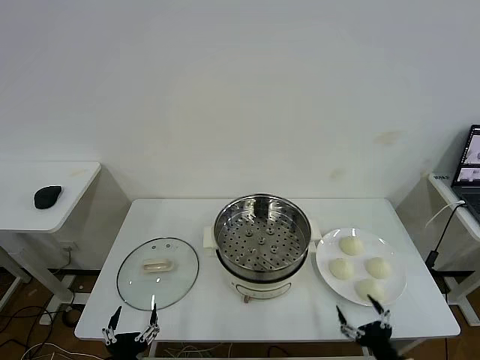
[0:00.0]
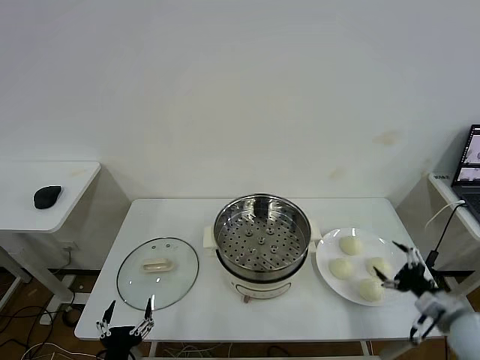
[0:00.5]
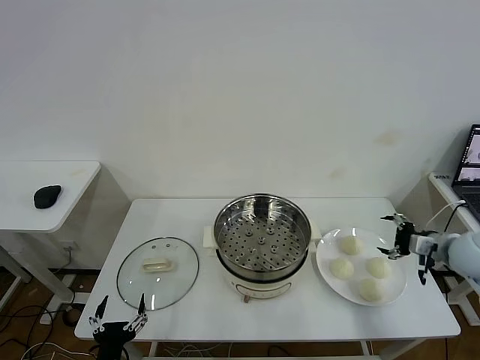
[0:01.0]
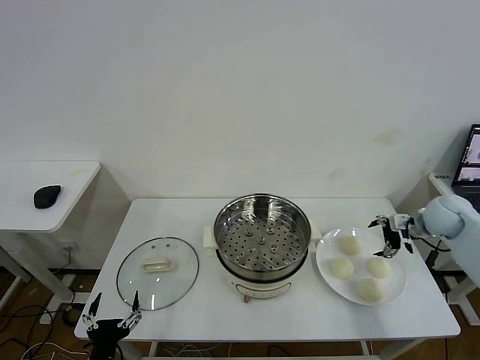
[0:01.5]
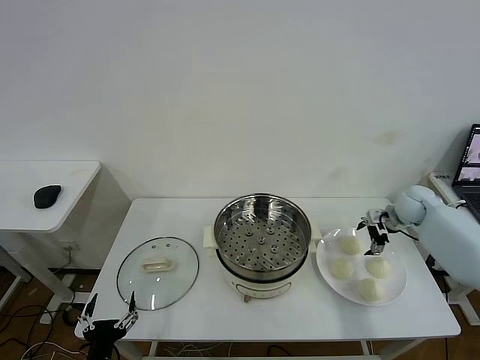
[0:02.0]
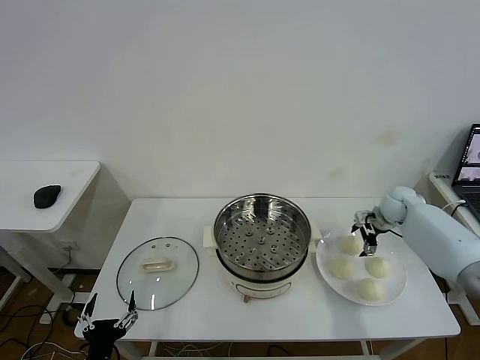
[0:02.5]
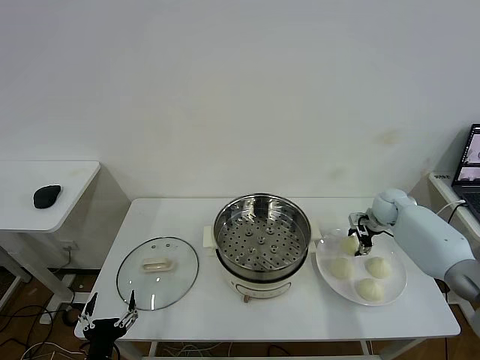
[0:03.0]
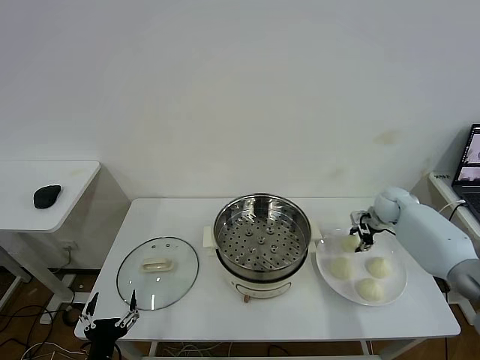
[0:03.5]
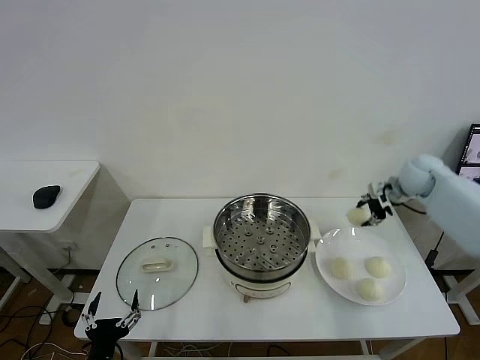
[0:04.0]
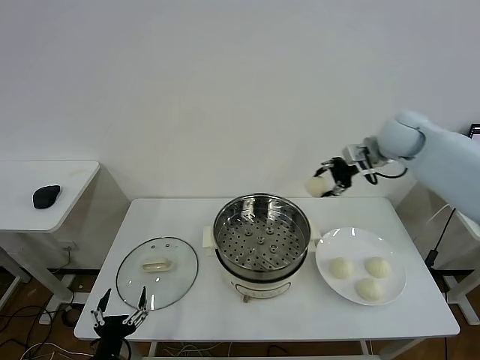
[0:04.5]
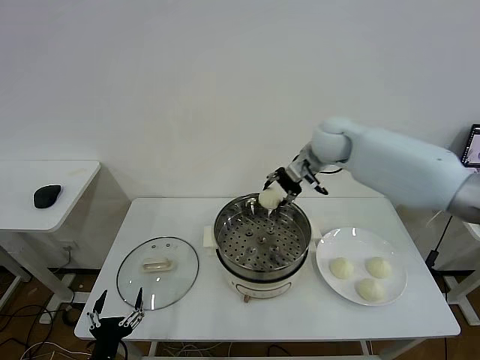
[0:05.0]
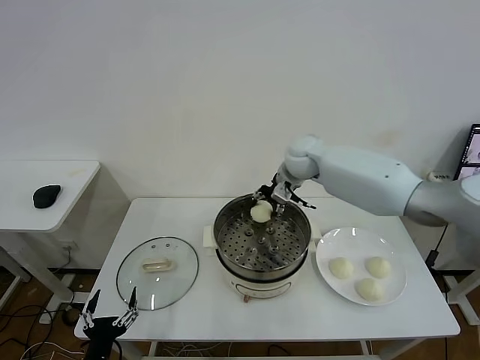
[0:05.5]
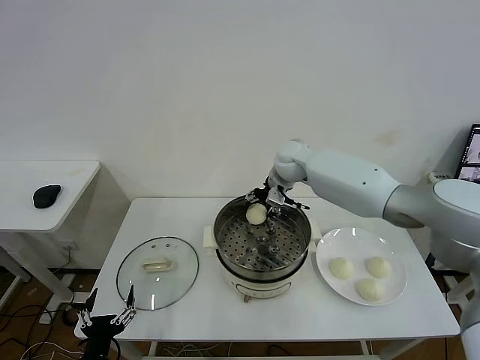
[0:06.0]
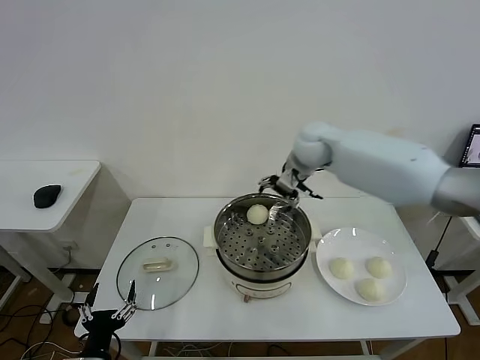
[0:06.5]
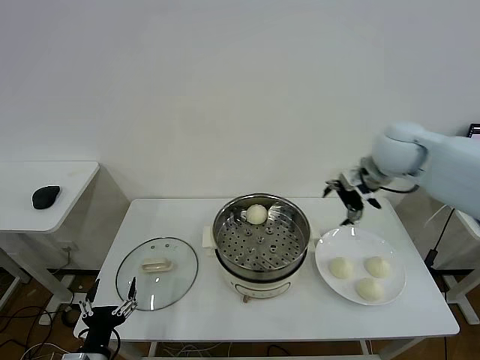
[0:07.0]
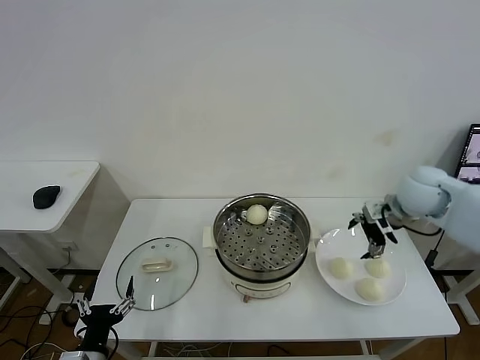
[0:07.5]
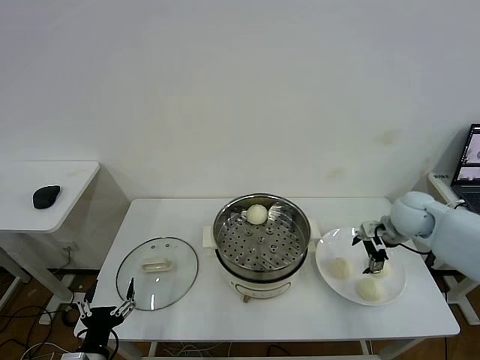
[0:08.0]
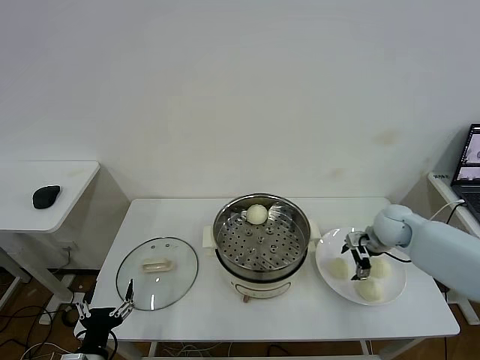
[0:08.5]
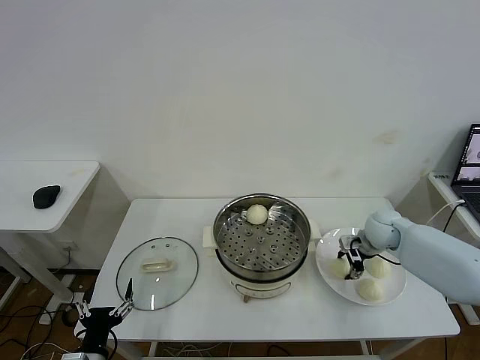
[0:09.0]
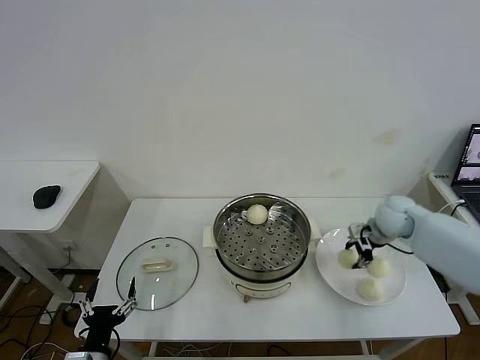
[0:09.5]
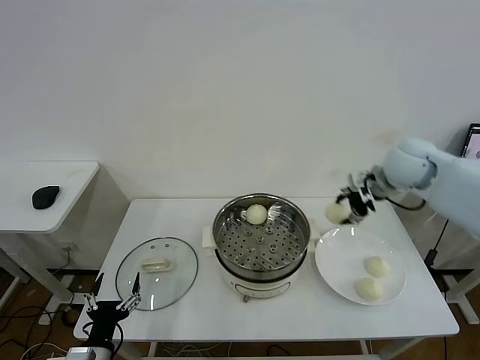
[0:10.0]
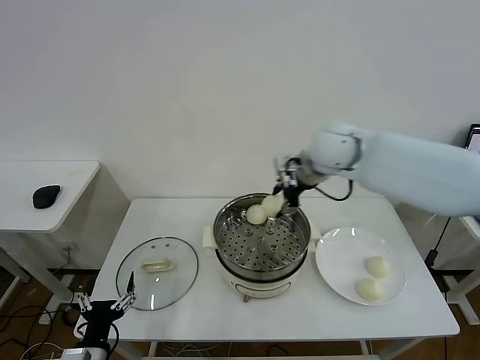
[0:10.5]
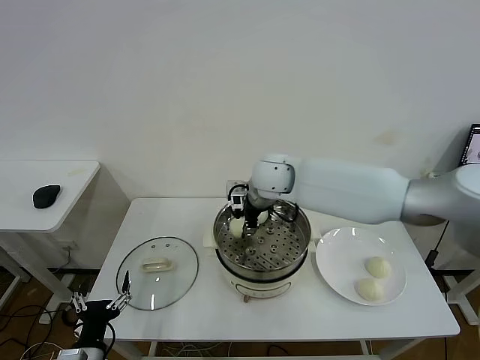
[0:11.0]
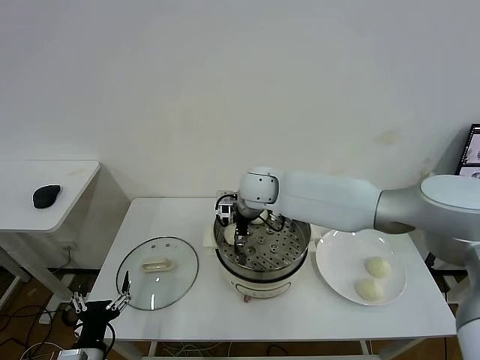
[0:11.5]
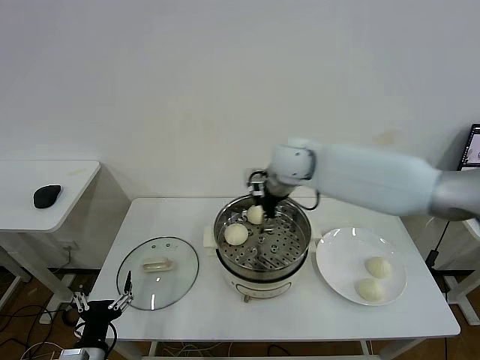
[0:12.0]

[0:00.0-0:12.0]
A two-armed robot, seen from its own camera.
Task of the whole recording: take steamed baozi put them in steamer then cover it.
Step, 0:00.0 to 0:03.0: Grasp the baozi in the plate with right gripper.
Step, 0:03.5 to 0:06.0: Place the baozi on the steamer with right gripper.
Step, 0:06.5 to 0:09.0: Grasp the baozi in the plate with right gripper.
Step, 0:09.5 to 0:11.5: Place the baozi on the steamer with right gripper.
0:02.0 to 0:04.0: The right gripper moves upward, approximately 10 cm, and closes its fingers.
0:04.0 to 0:06.0: The right gripper shifts about 30 cm to the left, and opens up.
0:06.0 to 0:08.0: The right gripper goes approximately 30 cm to the right and backward.
0:08.0 to 0:10.0: The right gripper shifts about 15 cm upward and to the left, and closes up.
0:10.0 to 0:12.0: The right gripper shifts roughly 20 cm to the left, and opens.

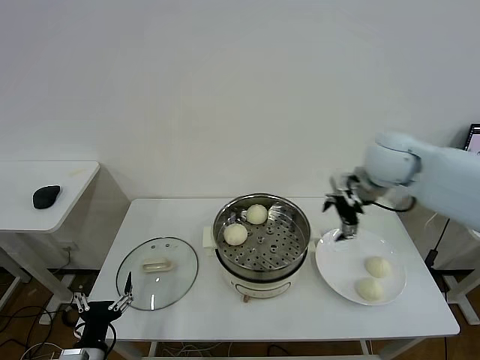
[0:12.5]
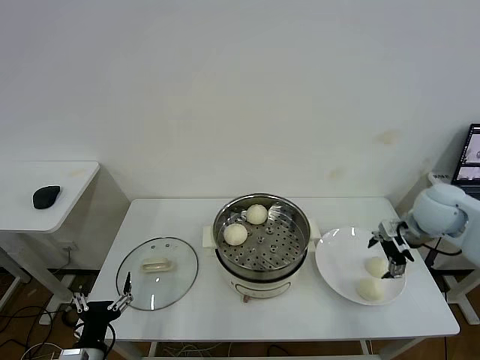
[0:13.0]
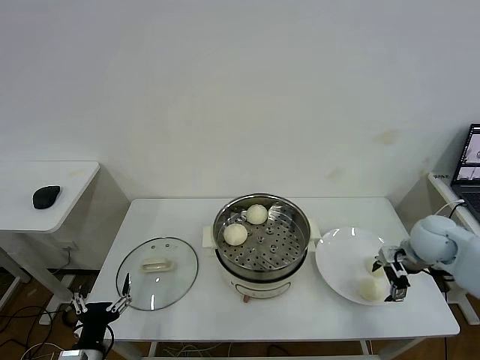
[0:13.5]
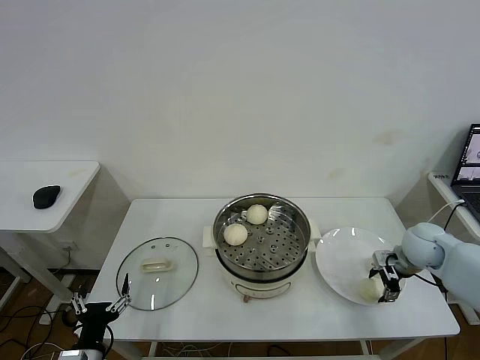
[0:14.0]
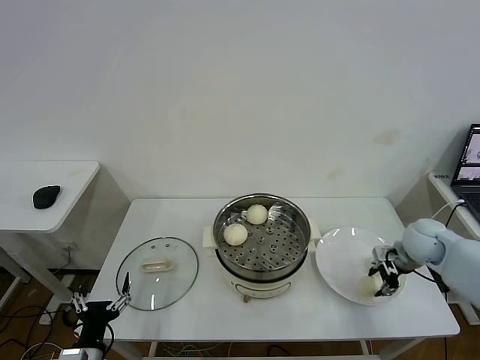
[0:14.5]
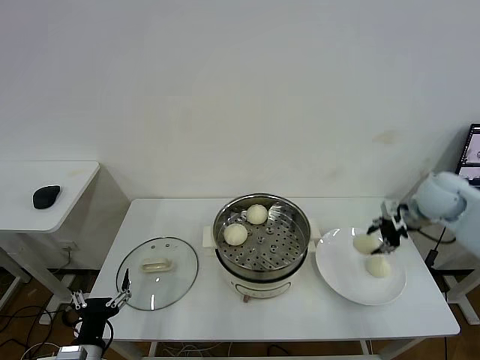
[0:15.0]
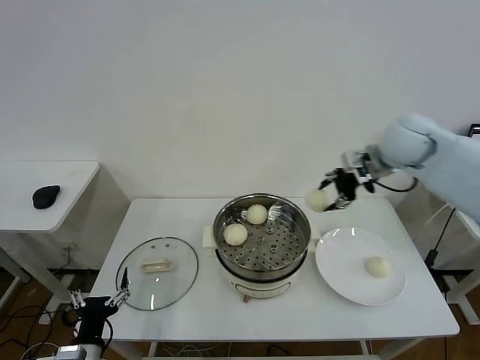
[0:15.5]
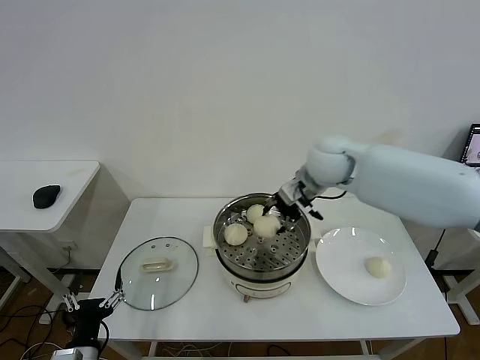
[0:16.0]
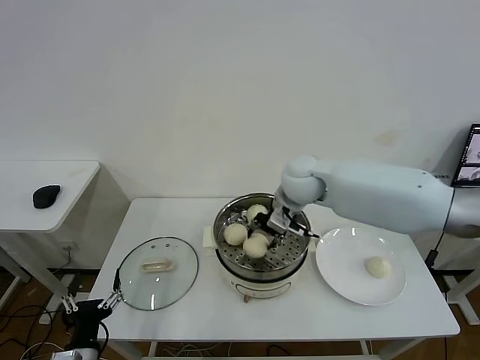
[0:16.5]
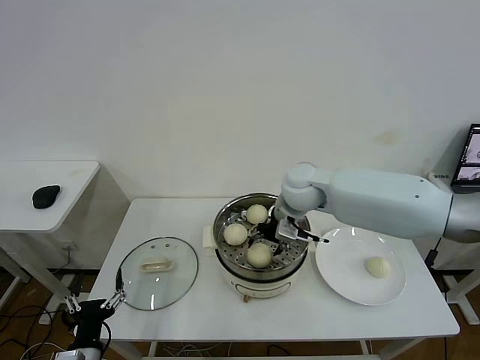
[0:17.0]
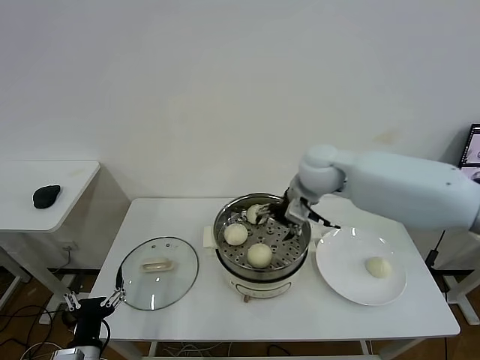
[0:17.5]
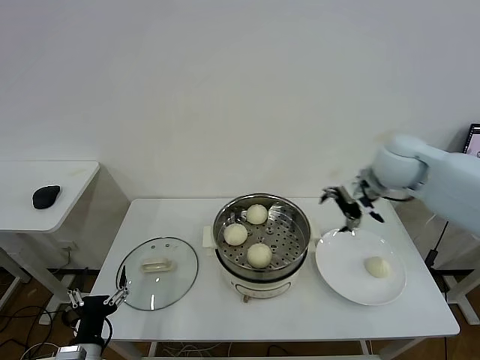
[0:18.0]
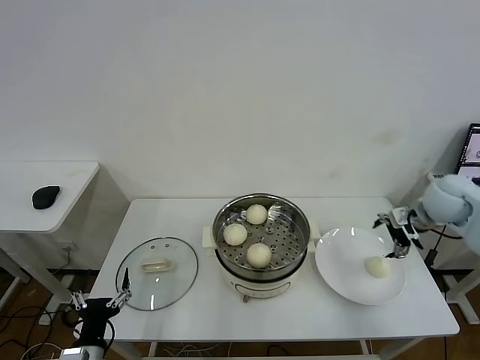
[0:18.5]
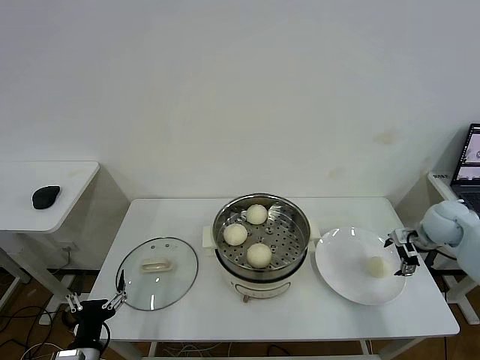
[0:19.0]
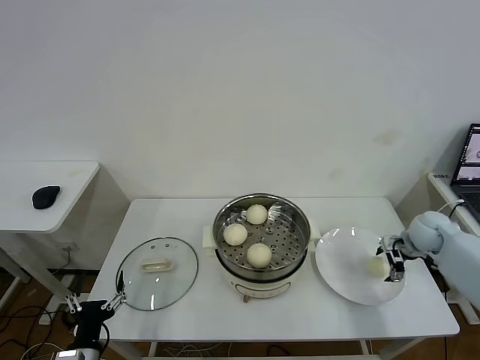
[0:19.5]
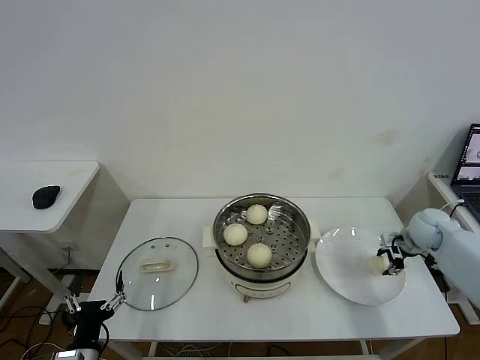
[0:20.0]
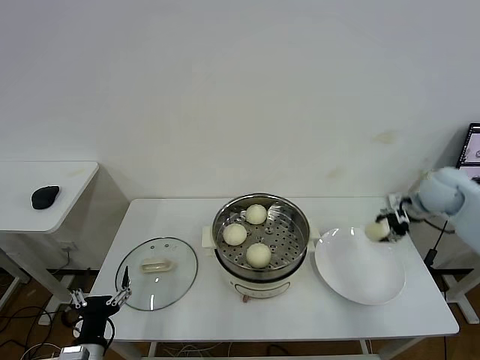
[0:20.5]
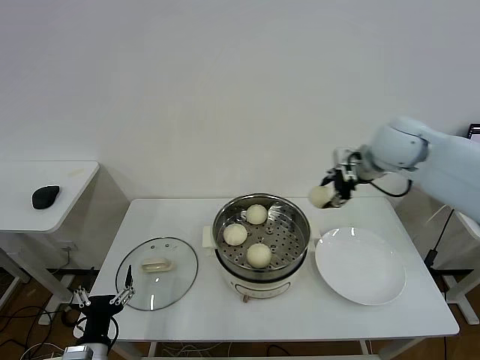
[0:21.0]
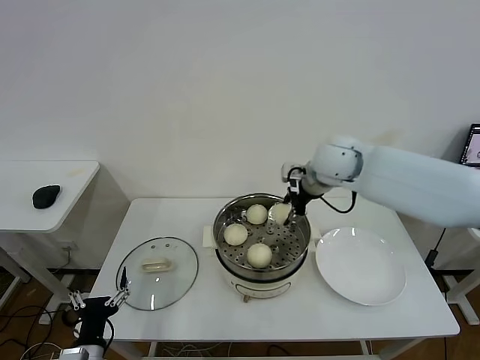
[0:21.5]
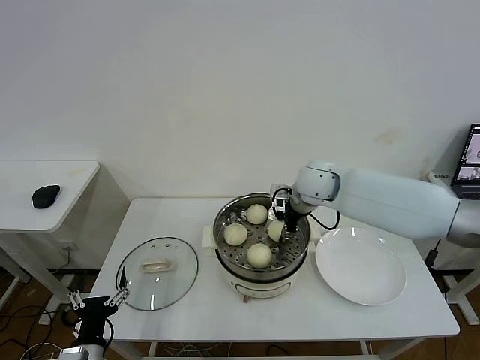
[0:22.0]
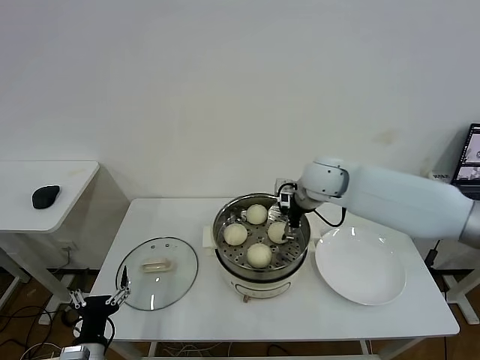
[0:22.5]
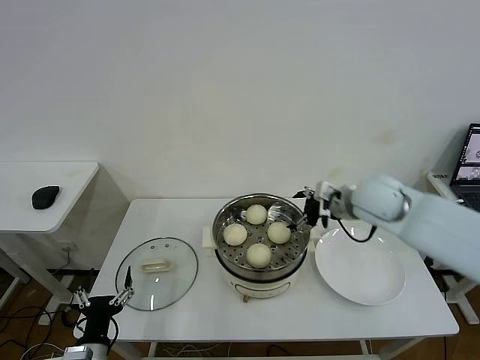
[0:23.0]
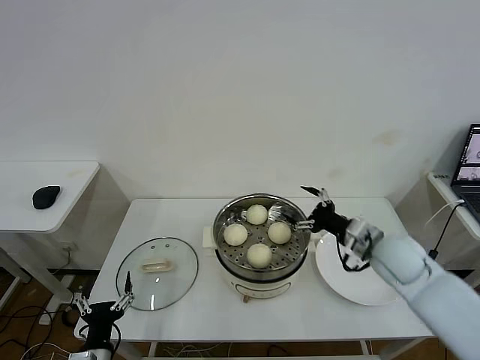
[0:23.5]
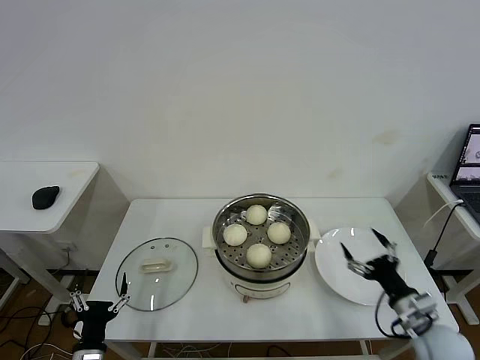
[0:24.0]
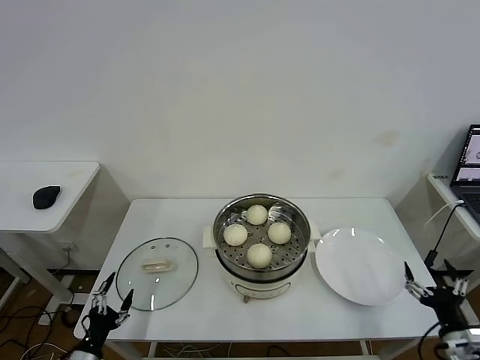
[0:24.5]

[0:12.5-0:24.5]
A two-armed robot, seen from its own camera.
Task of the whole recording: take steamed baozi put them in steamer then cover it.
Step, 0:12.5 to 0:14.0: Grasp the baozi in the plate with right gripper.
Step, 0:14.5 to 0:17.0: Place the baozi on the steamer with right gripper.
Step, 0:17.5 to 0:20.0: Grasp the baozi in the plate with right gripper.
Step, 0:20.5 to 0:22.0: Place the baozi on the steamer with right gripper.
0:12.5 to 0:14.5: The right gripper moves downward and to the right, roughly 25 cm, and closes.
0:14.5 to 0:16.5: The right gripper travels to the left and upward by approximately 30 cm.
0:16.5 to 0:18.5: The right gripper travels to the right by roughly 30 cm, and opens up.
0:18.5 to 0:20.5: The right gripper reaches some 15 cm downward, then returns, and closes up.
0:20.5 to 0:22.5: The right gripper heads to the left, covering about 25 cm, and opens.
0:22.5 to 0:24.5: The left gripper moves to the left, approximately 5 cm. Meanwhile the right gripper moves backward, to the right and downward, roughly 50 cm.

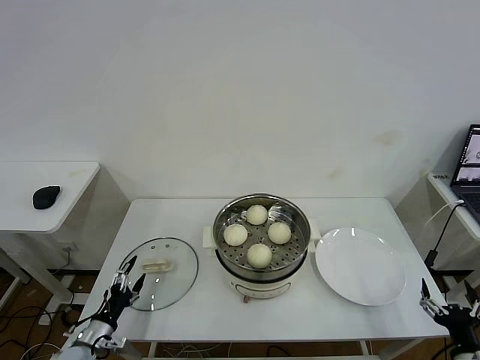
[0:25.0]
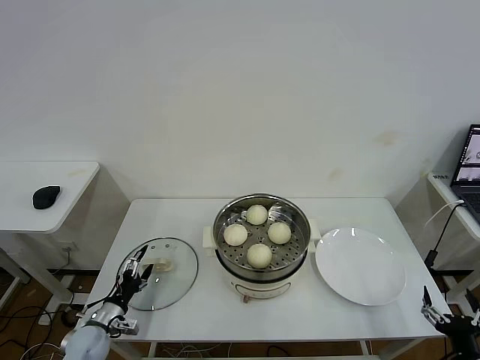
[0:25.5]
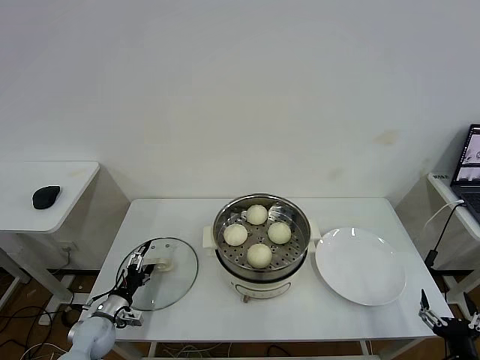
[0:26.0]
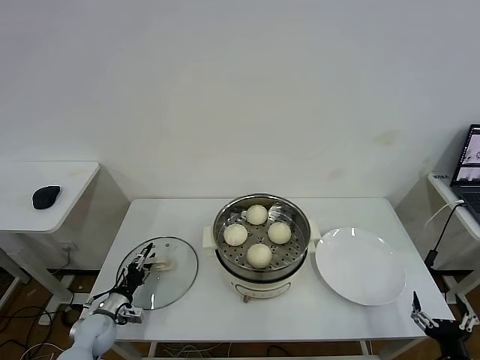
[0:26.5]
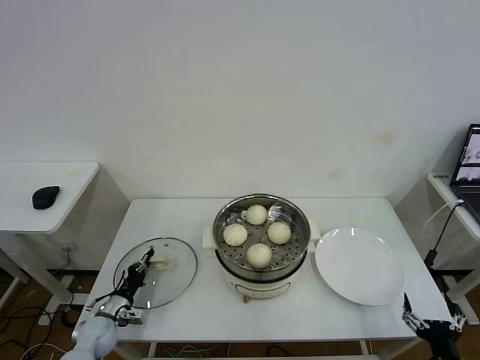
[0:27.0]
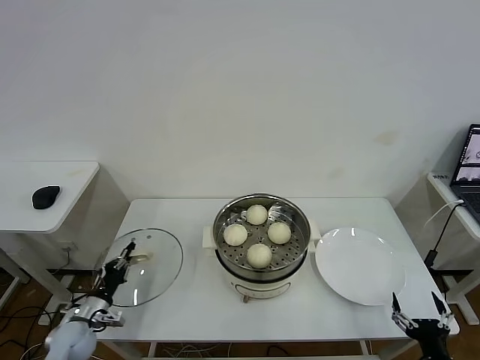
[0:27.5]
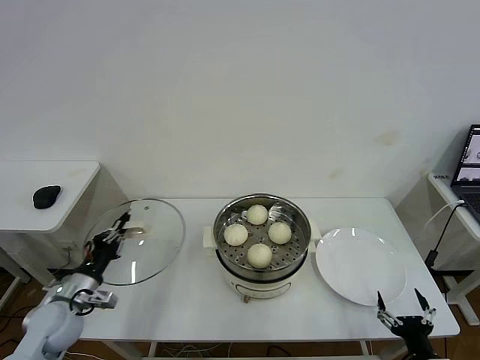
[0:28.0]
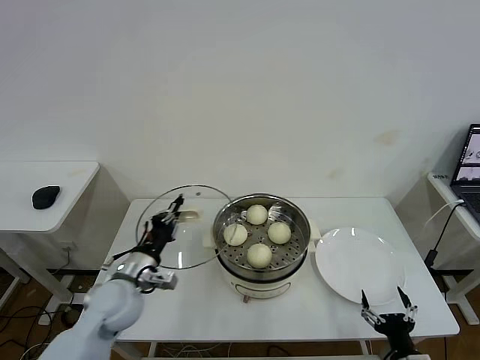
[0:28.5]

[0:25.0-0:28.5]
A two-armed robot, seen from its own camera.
Task of the whole recording: take steamed baozi put them in steamer then cover it.
Step, 0:25.0 to 0:27.0: Grasp the pot lid with left gripper.
0:25.0 to 0:27.0: The left gripper travels forward by some 10 cm, and closes.
0:27.0 to 0:28.5: The right gripper shifts about 5 cm to the left. Meanwhile the left gripper moves upward and to the right, roughly 25 cm.
